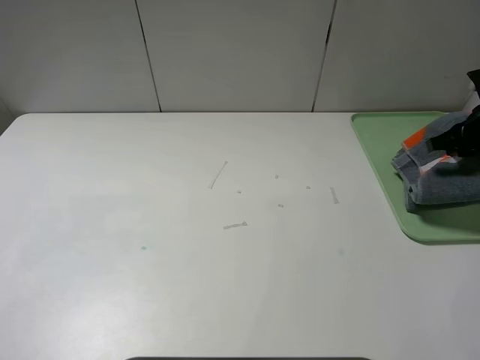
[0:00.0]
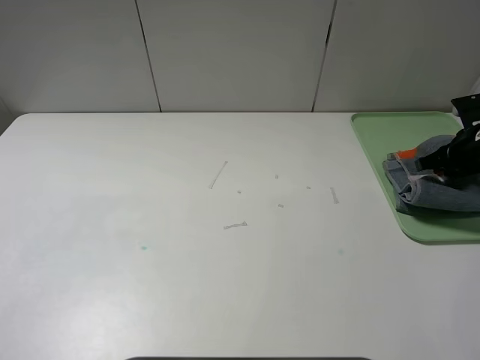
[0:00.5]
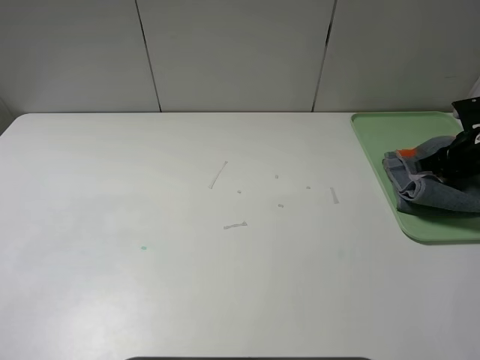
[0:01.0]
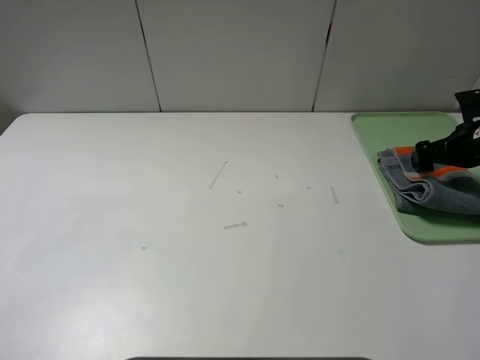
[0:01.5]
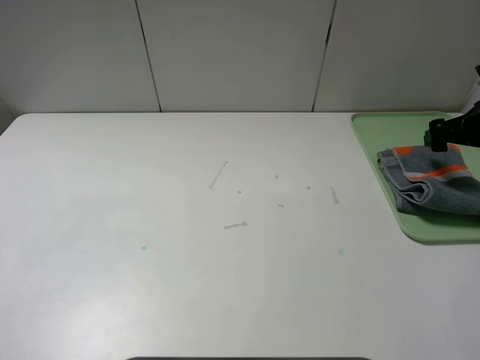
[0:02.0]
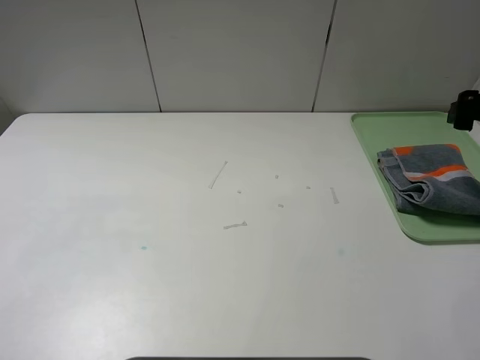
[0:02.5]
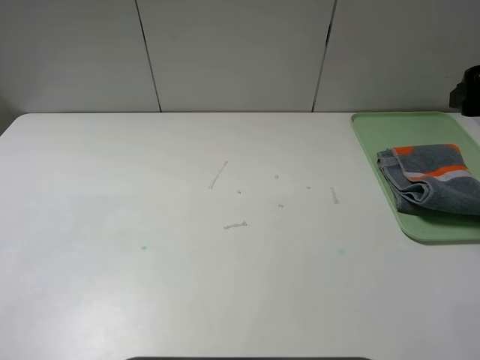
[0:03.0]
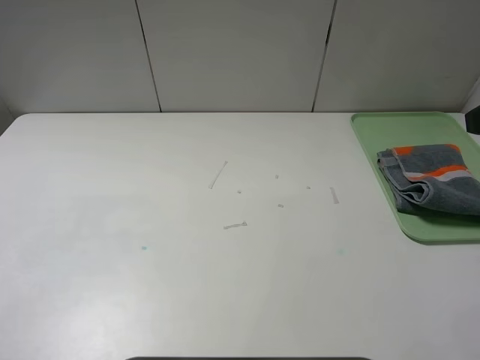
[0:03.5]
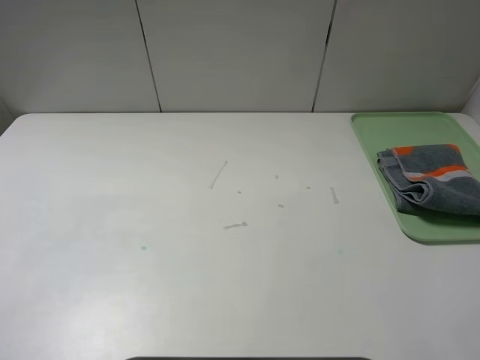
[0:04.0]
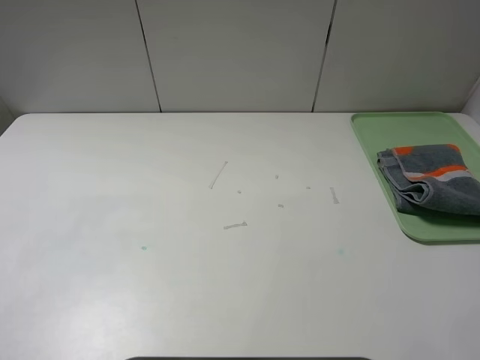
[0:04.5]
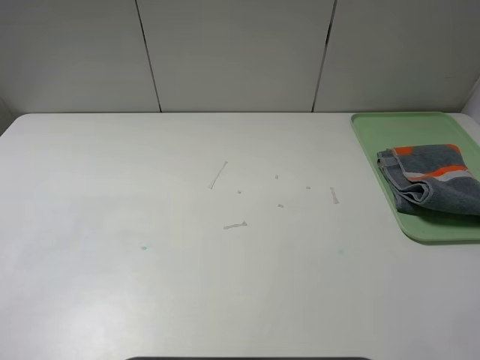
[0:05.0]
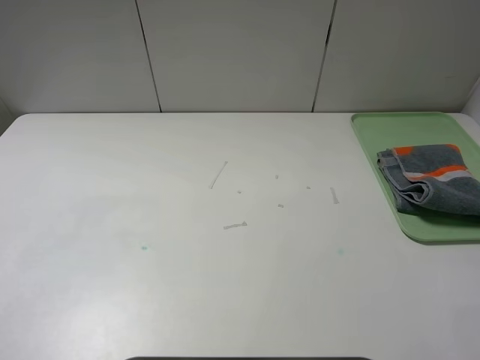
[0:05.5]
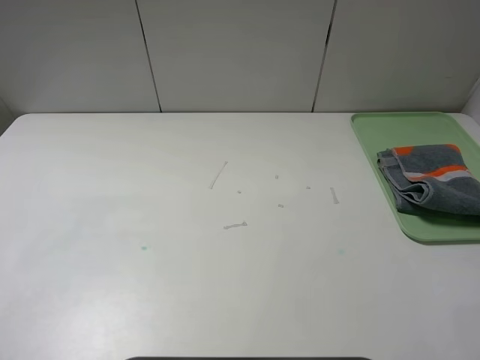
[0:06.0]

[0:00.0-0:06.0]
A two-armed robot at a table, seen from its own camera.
0:00.0 to 0:02.0: The right gripper opens up.
0:02.0 to 0:04.0: The right gripper goes roughly 30 cm backward, upward and to the left.
